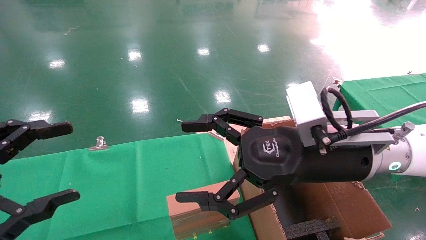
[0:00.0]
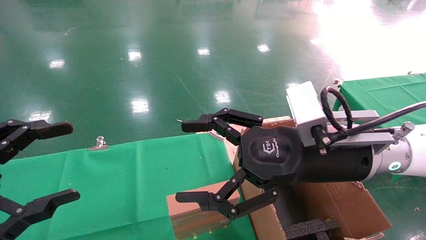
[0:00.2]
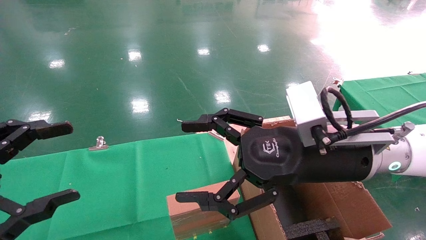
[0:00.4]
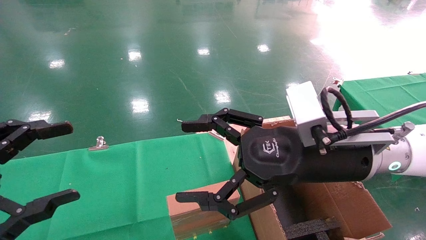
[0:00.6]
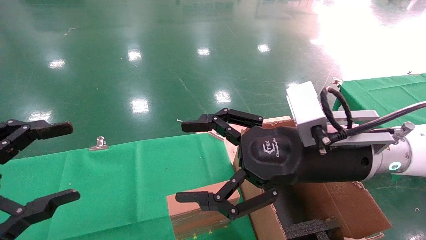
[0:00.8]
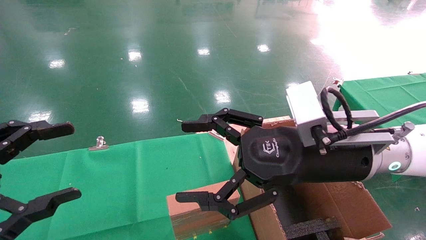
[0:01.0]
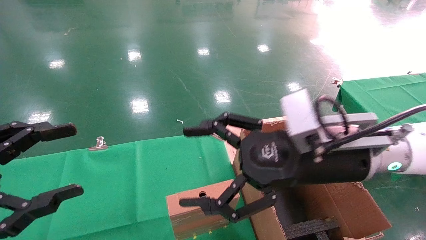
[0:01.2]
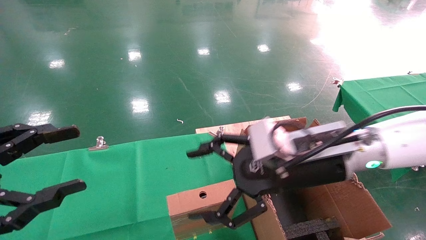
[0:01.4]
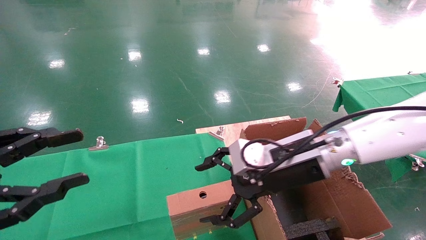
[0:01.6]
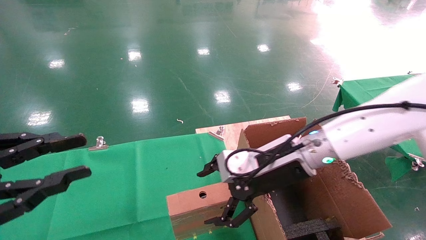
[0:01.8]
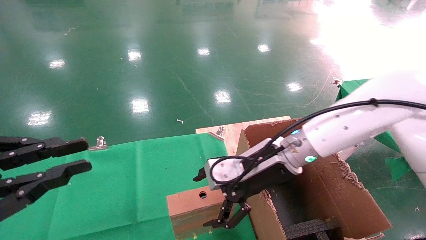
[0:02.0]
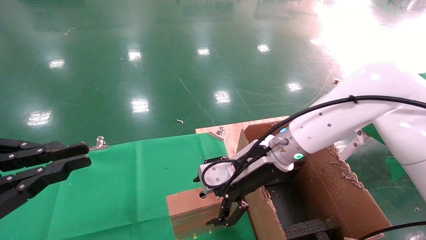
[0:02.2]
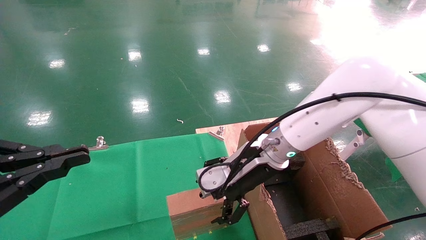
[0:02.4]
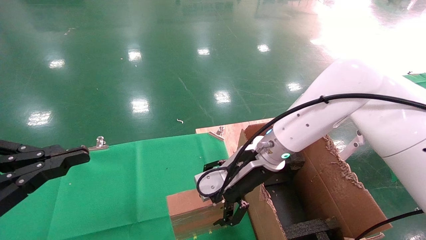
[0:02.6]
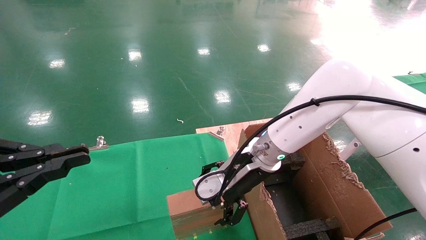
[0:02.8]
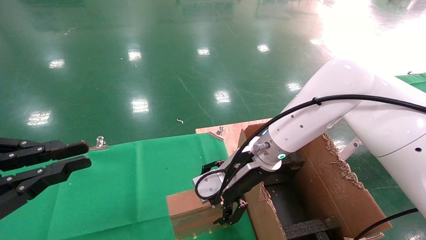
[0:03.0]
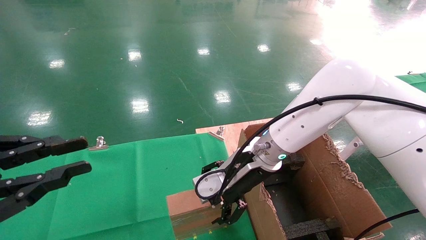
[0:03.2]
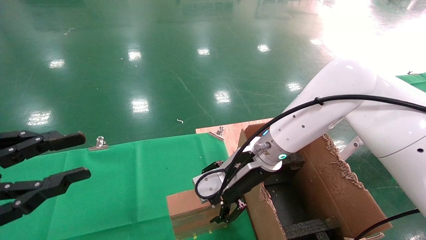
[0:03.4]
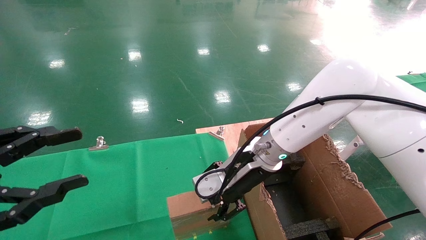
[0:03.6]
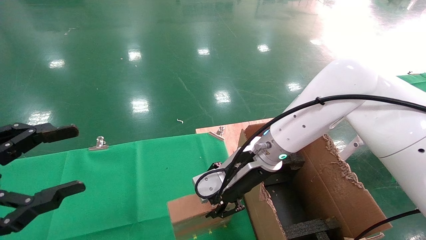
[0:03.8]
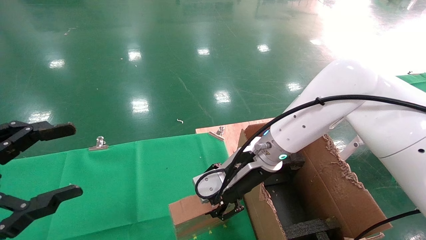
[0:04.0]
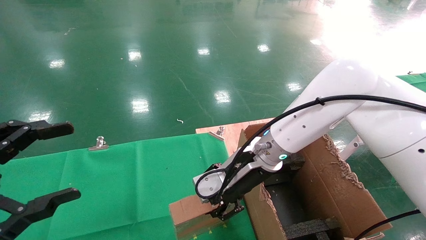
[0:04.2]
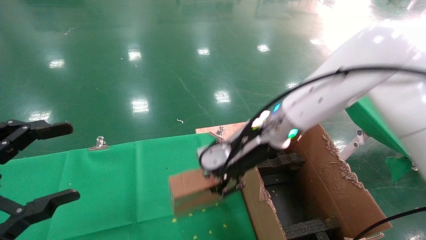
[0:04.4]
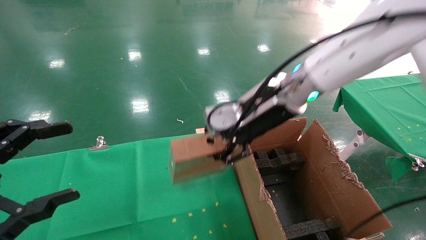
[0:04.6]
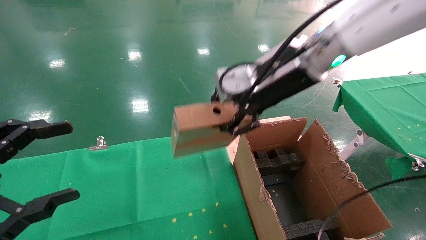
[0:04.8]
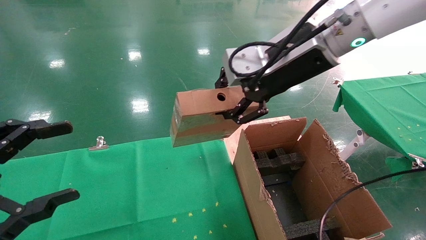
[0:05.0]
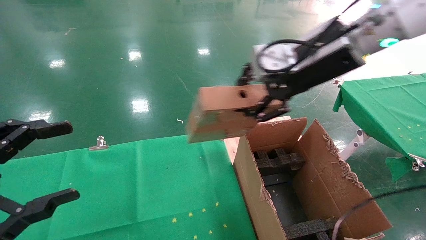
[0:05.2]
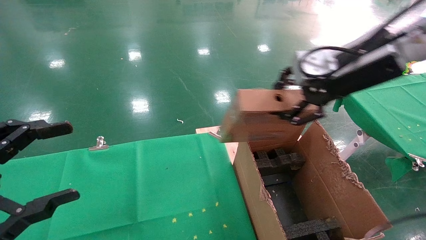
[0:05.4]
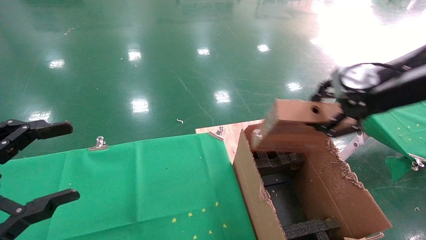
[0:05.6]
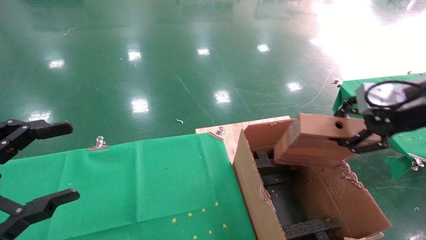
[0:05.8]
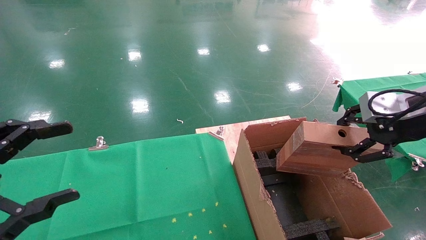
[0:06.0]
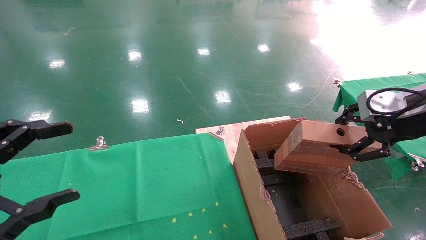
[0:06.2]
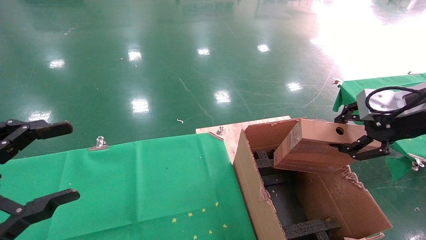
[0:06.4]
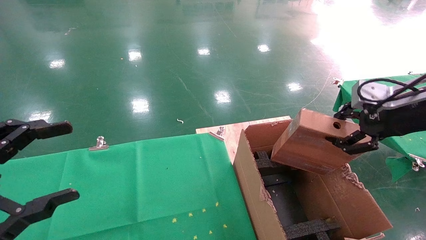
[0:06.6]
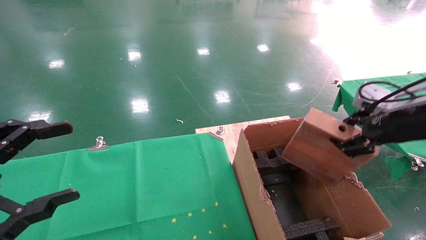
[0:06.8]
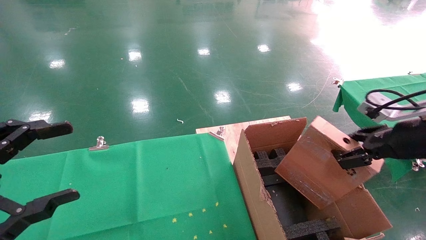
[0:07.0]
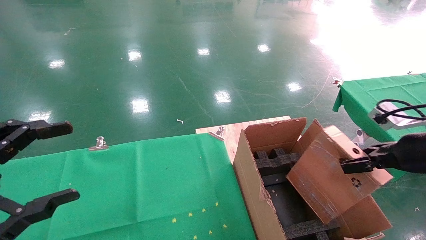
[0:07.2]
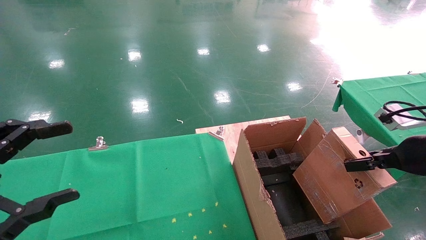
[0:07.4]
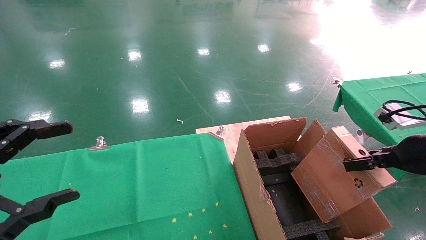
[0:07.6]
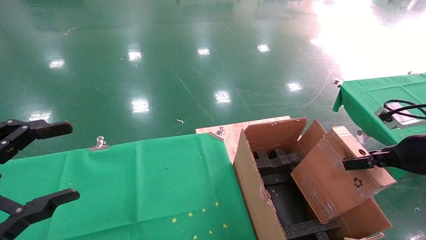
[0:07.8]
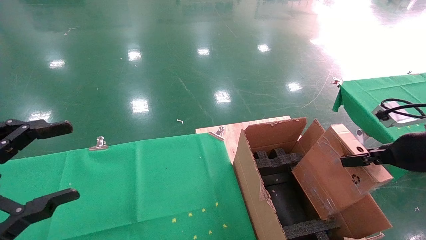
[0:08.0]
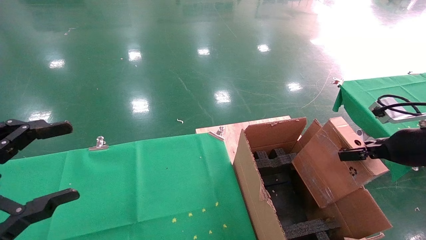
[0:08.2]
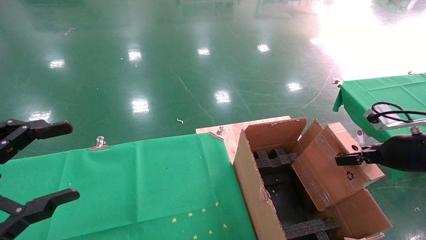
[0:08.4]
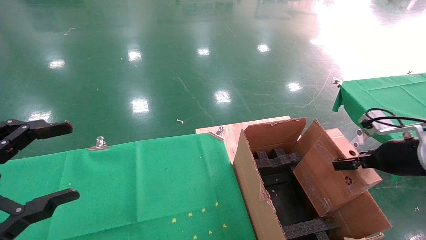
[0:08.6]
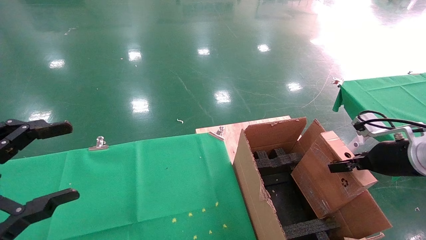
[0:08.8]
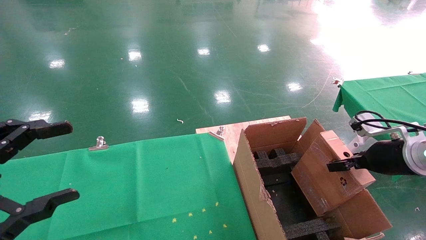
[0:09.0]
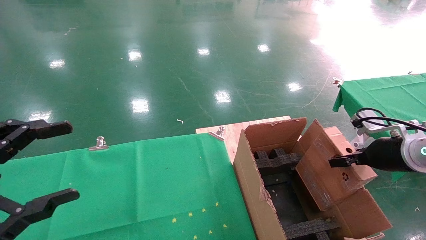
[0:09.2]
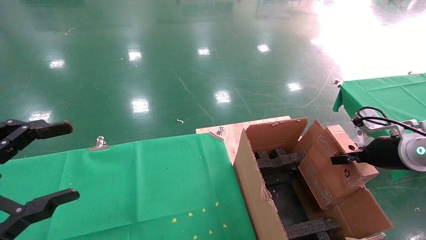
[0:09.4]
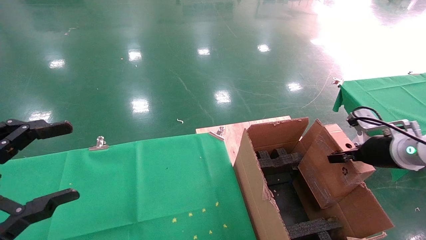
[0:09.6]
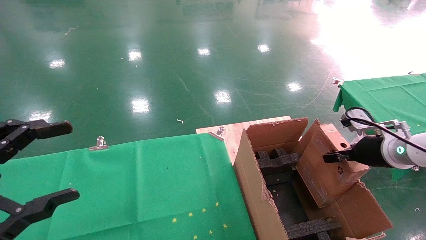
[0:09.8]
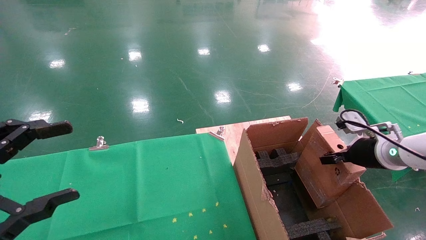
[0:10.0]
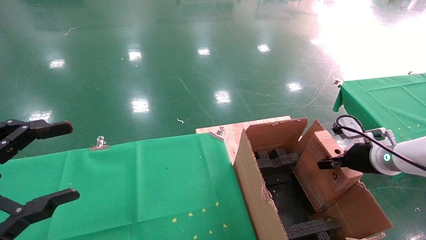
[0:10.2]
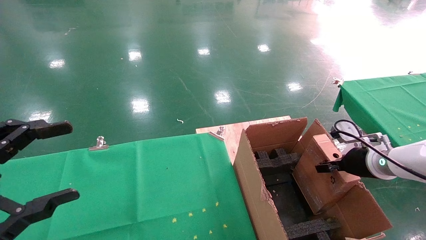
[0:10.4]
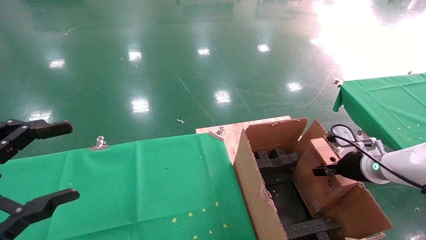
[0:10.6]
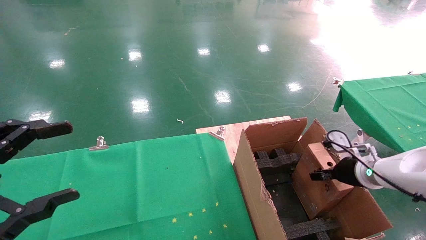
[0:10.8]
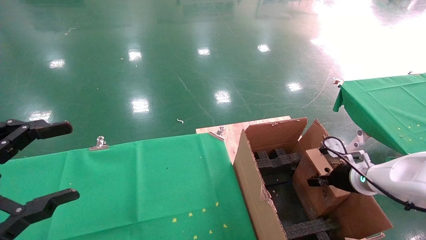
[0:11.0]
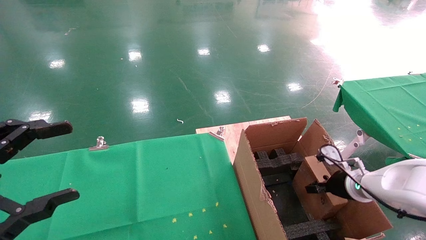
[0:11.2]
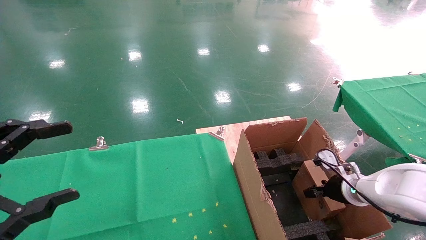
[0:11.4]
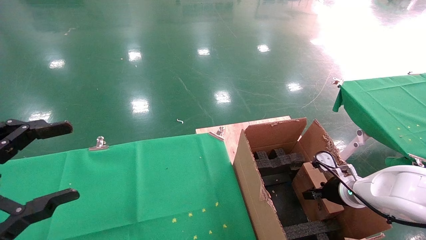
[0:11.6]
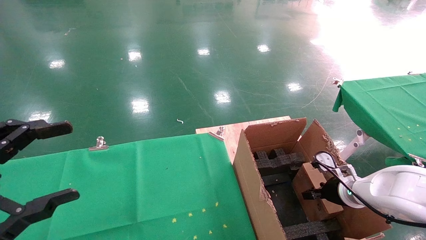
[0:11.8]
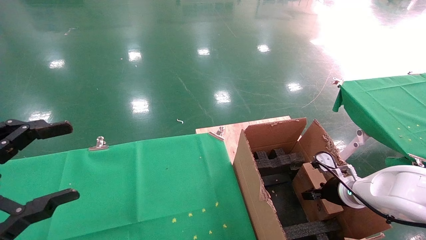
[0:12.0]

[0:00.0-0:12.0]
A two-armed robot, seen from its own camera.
Task of the whole recording: using a robotic arm to pick up a cardboard box and palace it the carton.
Step, 0:01.4 to 0:03.8: Pick up the mouse and the power cord paper box.
0:00.0 to 0:01.6: The right gripper travels forward by approximately 5 cm.
0:01.6 to 0:03.0: The right gripper heads forward and to the left, covering about 10 cm. Meanwhile the left gripper closes.
0:03.0 to 0:04.4: The left gripper opens; the right gripper is displaced upward by roughly 5 cm, and closes up.
0:04.4 to 0:06.0: The right gripper goes about 30 cm to the right and backward.
0:06.0 to 0:07.6: The right gripper travels downward by roughly 10 cm.
0:07.6 to 0:09.0: The right gripper is displaced forward by approximately 5 cm.
0:09.0 to 0:10.4: The right gripper shifts roughly 5 cm forward.
0:10.4 to 0:12.0: The right gripper travels downward by approximately 10 cm.

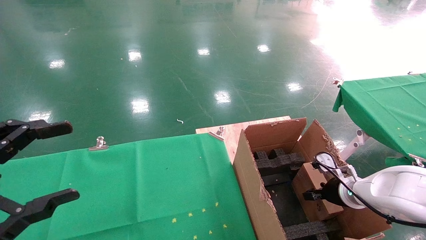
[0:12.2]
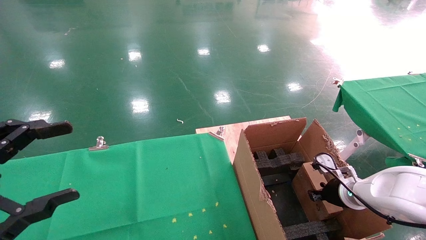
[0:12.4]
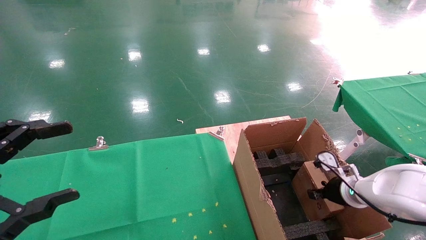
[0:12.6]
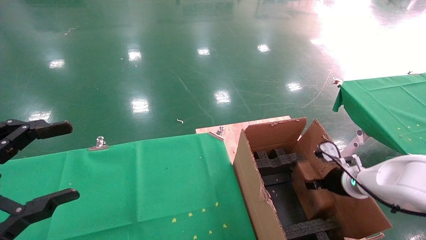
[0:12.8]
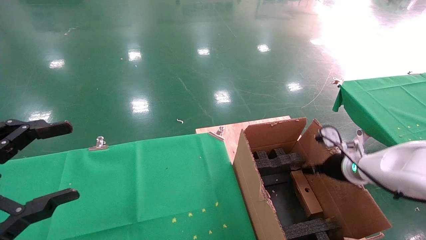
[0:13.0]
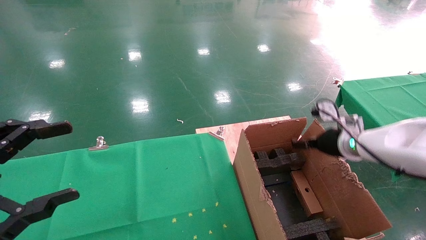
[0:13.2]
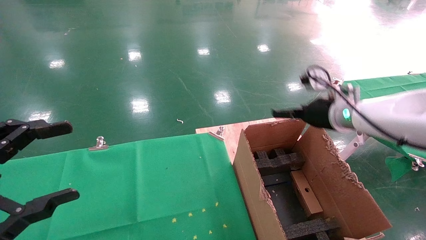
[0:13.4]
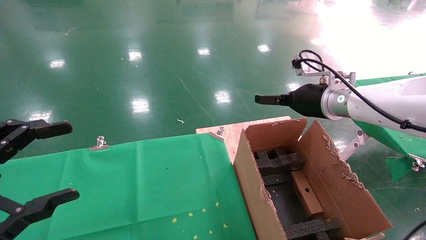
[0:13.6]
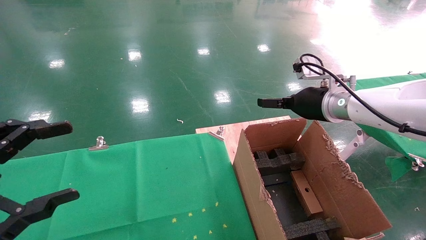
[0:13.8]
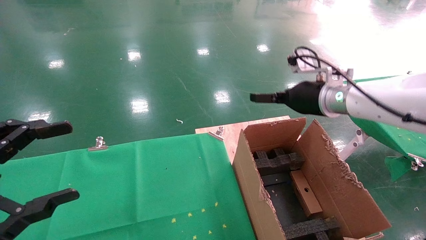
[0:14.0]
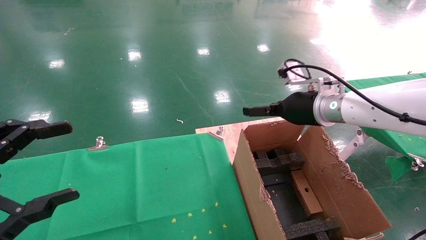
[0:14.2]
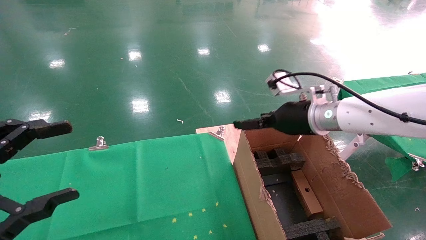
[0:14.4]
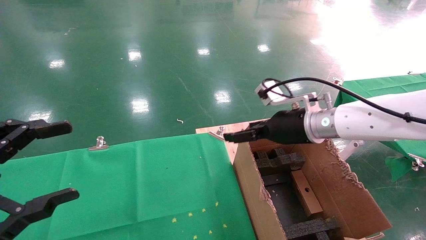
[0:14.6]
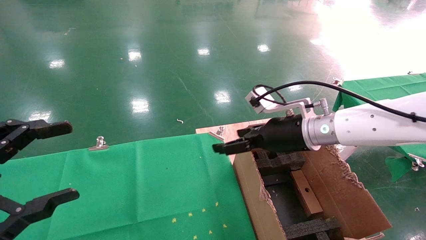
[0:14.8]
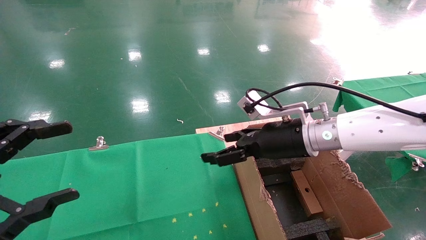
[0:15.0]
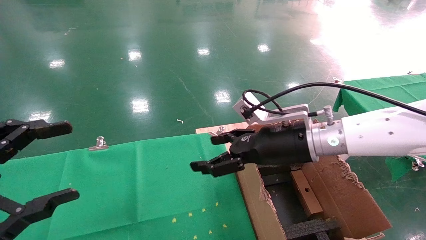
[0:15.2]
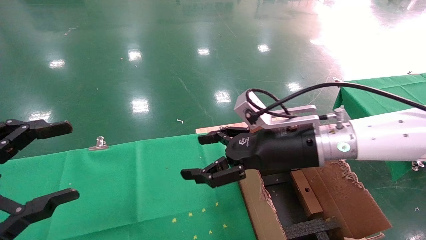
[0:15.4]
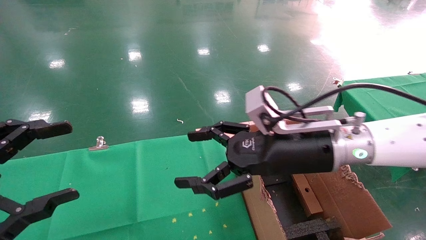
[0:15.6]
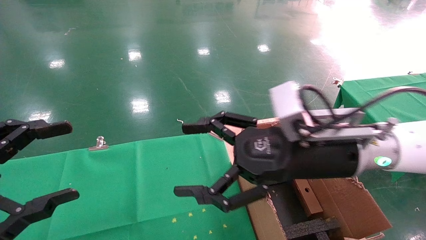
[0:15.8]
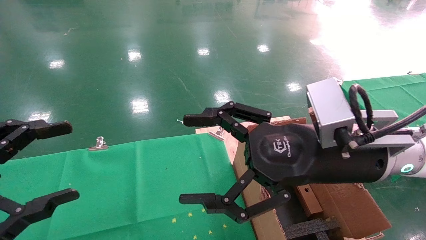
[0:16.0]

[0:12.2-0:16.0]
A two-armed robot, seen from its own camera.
Task of the whole recording: using a robotic arm to pick up a cardboard box and palace it the carton.
0:12.2 to 0:13.4: The right gripper is displaced upward by about 20 cm, and opens its fingers.
0:13.4 to 0:14.8: The right gripper travels to the left by roughly 10 cm.
0:14.8 to 0:16.0: The right gripper is displaced backward by some 10 cm.

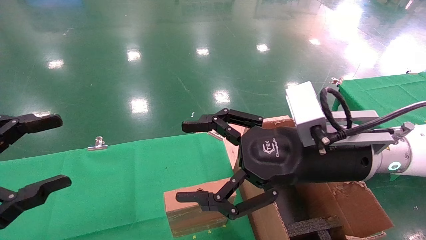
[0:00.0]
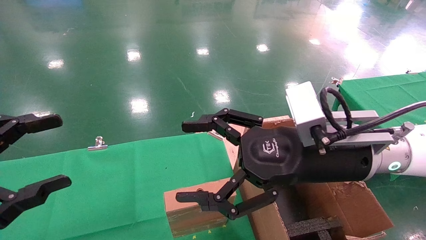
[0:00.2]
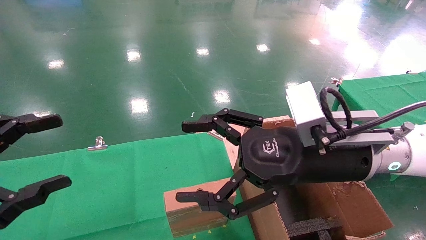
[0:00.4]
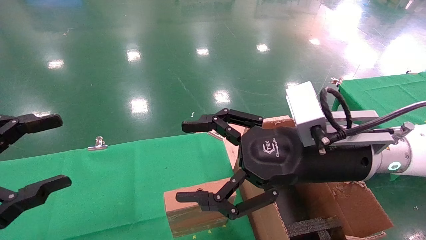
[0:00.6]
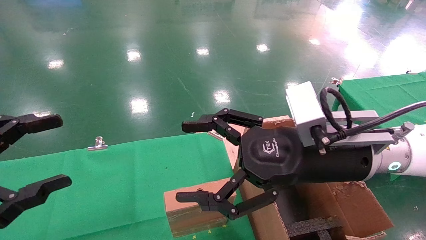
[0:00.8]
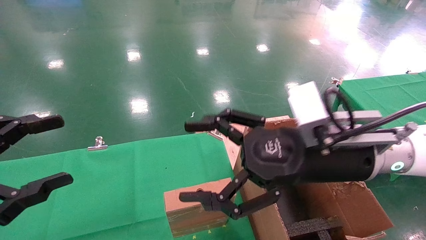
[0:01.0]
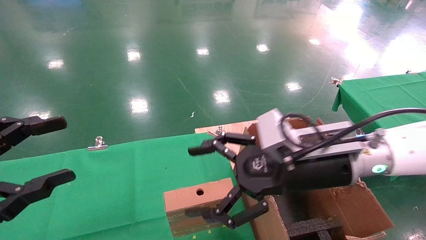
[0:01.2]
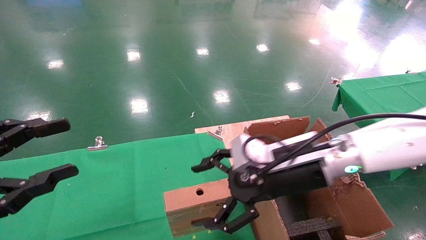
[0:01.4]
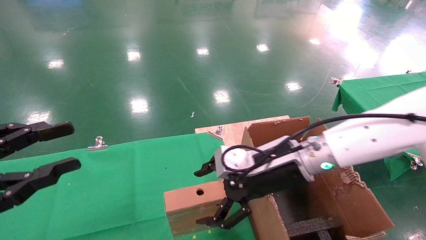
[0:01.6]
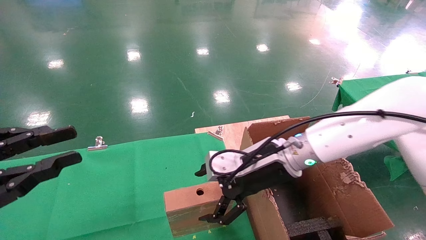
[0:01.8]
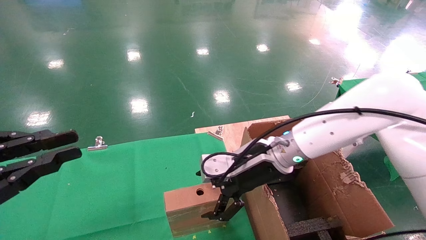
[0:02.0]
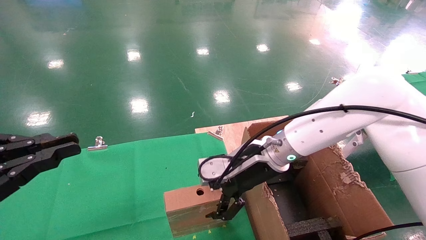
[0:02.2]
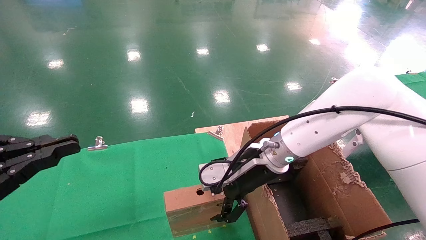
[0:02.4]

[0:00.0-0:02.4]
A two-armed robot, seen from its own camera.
Task of the whole recording: using a robotic arm to pick up a cardboard box and palace it the carton.
0:00.0 to 0:01.2: There are only small adjustments of the grippers.
0:01.2 to 0:02.4: The left gripper closes its fingers; the right gripper travels forward by approximately 10 cm.
